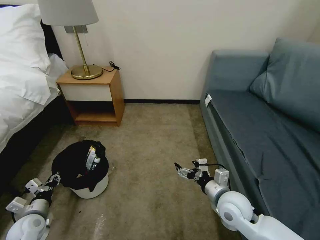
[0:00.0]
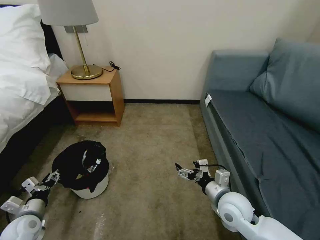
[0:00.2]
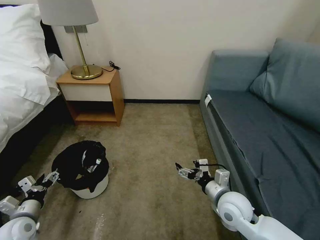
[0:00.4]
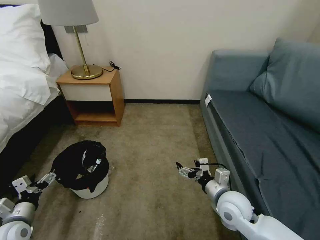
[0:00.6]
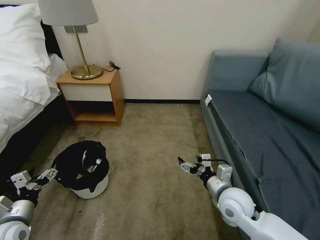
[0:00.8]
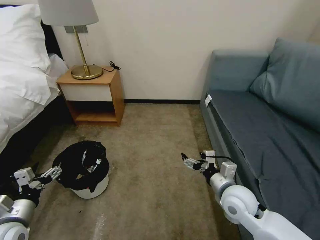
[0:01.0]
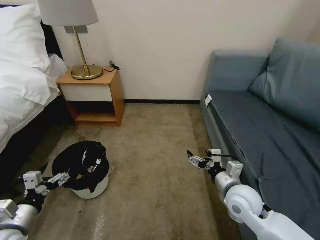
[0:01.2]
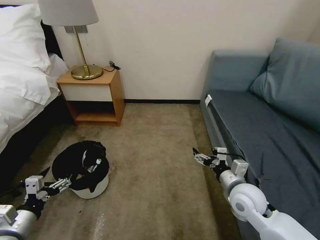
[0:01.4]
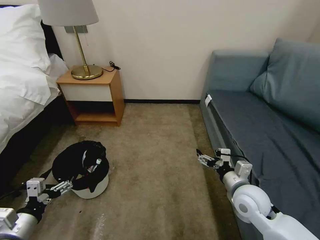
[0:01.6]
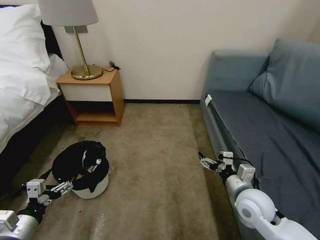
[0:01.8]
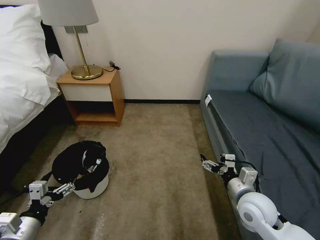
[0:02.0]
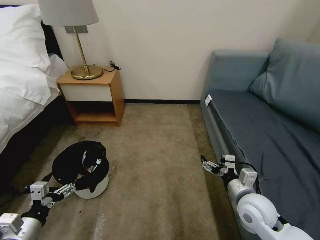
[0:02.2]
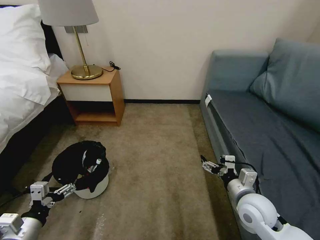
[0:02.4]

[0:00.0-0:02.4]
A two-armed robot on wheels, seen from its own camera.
Task of the whole recording: Pick up the trash bin, then pick up the garbage on the floor and place it into the trash bin.
0:00.0 to 0:01.2: The left gripper shifts roughly 15 cm upward and backward, and opens up.
0:01.2 to 0:02.4: The grippers stay close to where they were, moving slightly.
